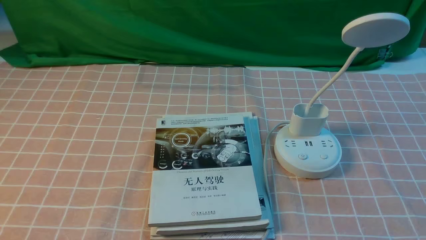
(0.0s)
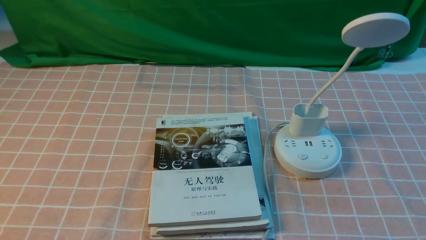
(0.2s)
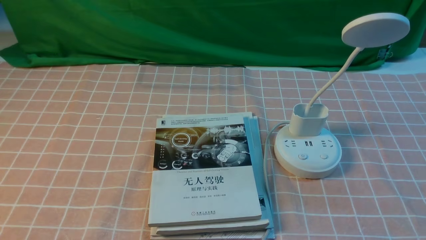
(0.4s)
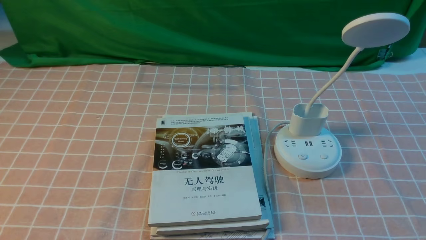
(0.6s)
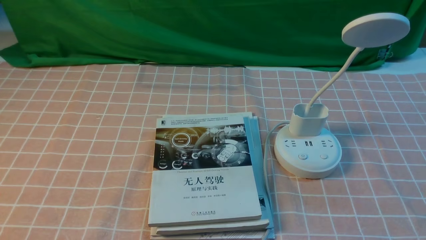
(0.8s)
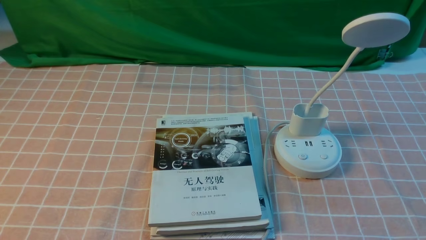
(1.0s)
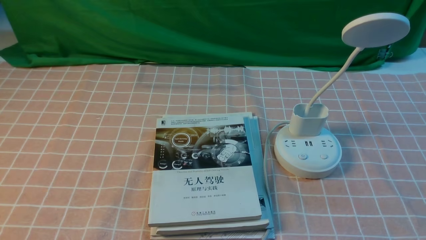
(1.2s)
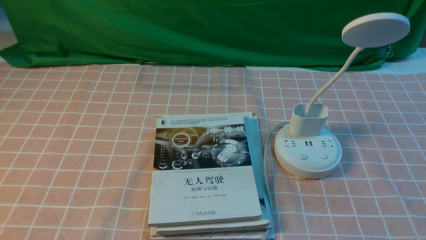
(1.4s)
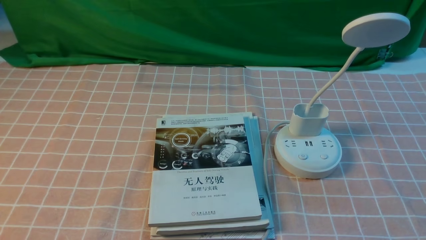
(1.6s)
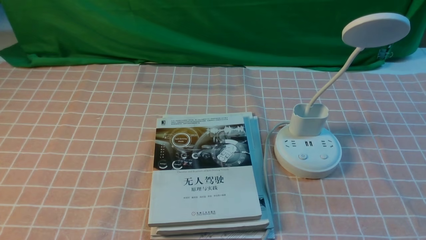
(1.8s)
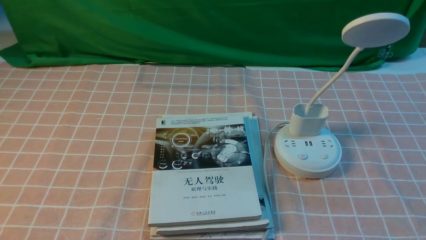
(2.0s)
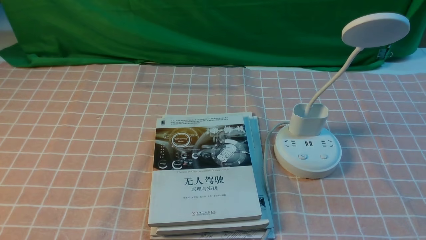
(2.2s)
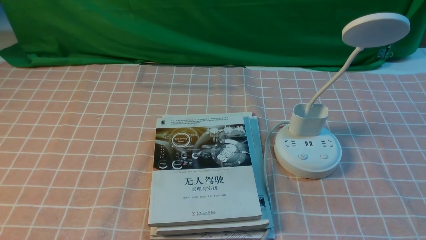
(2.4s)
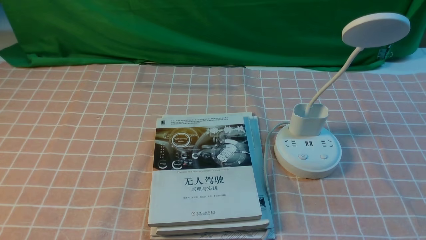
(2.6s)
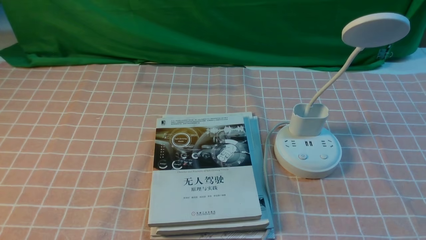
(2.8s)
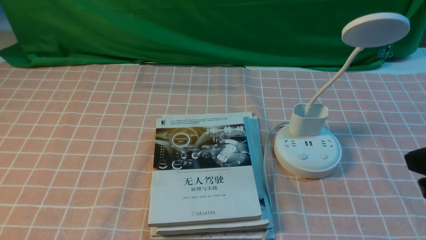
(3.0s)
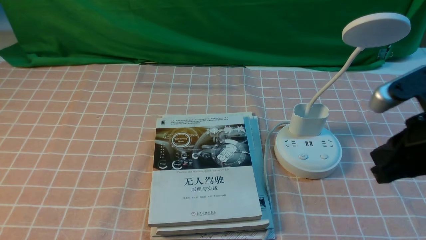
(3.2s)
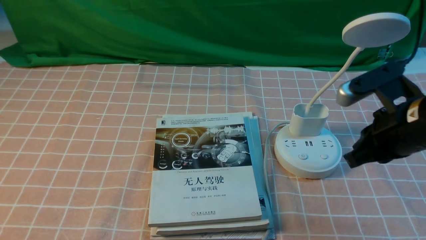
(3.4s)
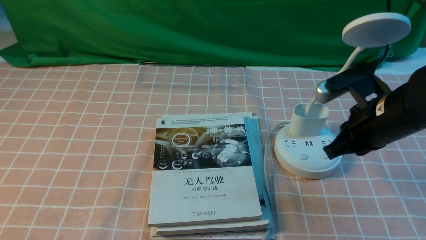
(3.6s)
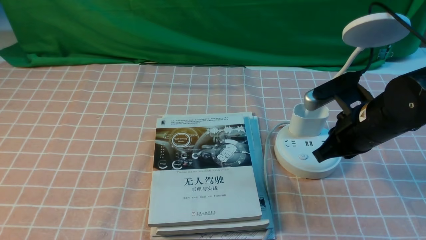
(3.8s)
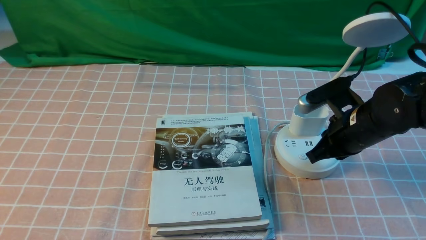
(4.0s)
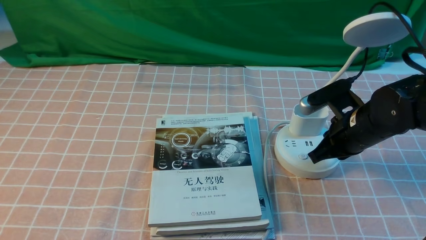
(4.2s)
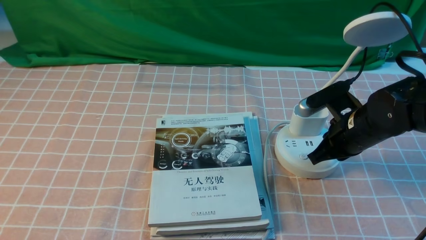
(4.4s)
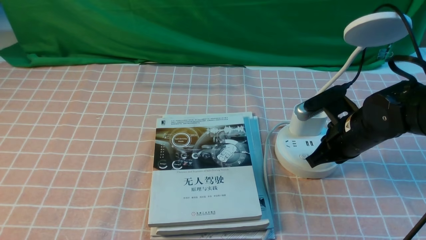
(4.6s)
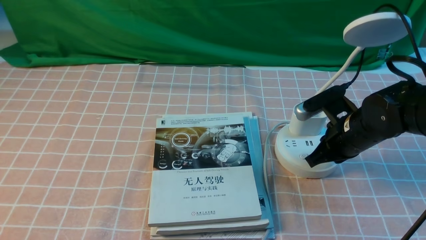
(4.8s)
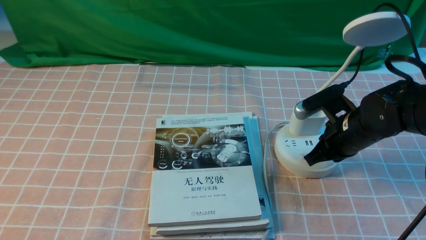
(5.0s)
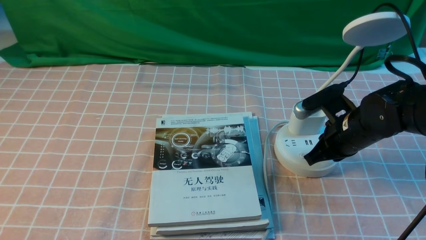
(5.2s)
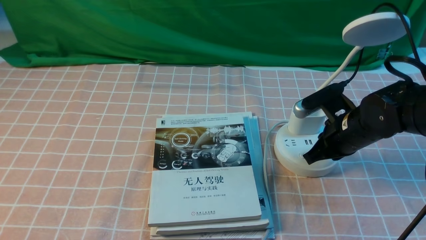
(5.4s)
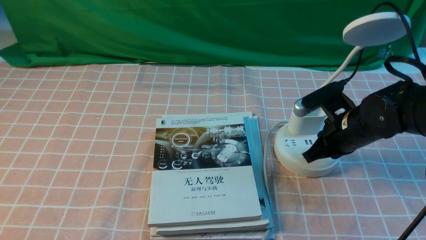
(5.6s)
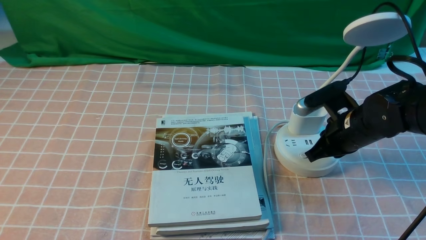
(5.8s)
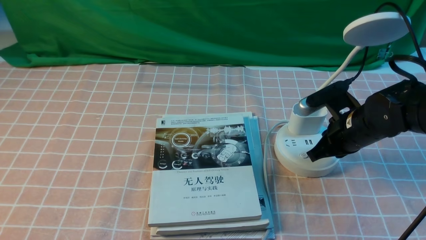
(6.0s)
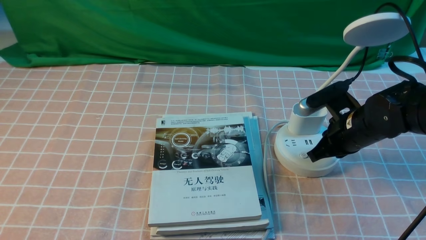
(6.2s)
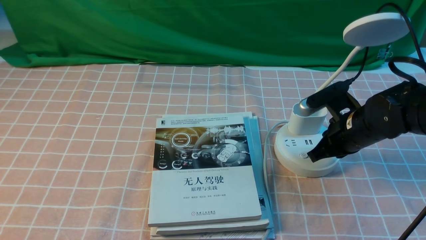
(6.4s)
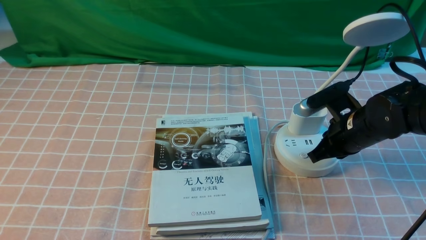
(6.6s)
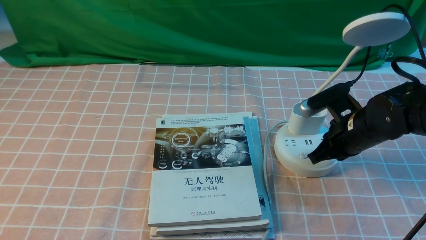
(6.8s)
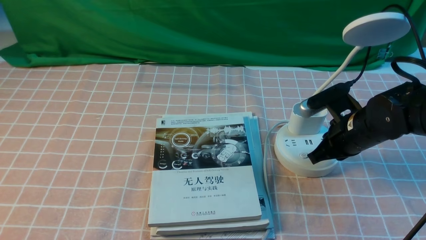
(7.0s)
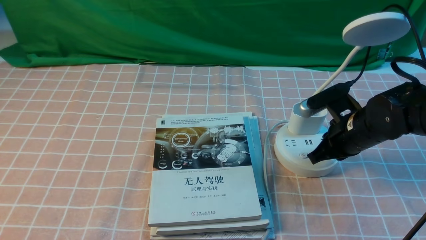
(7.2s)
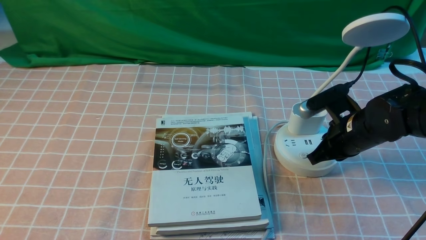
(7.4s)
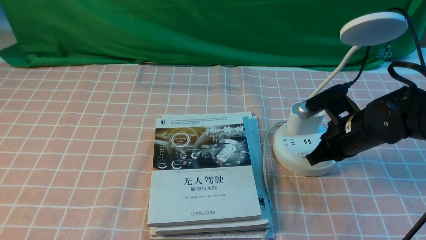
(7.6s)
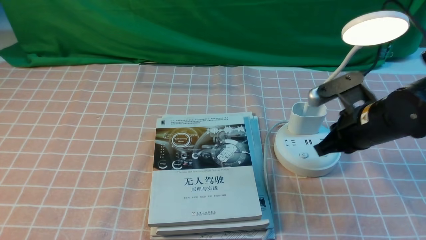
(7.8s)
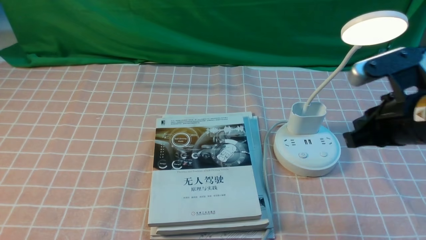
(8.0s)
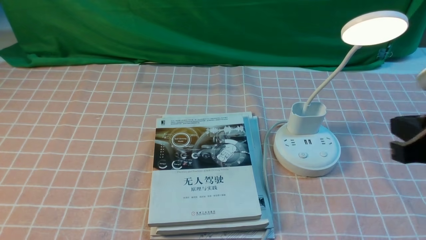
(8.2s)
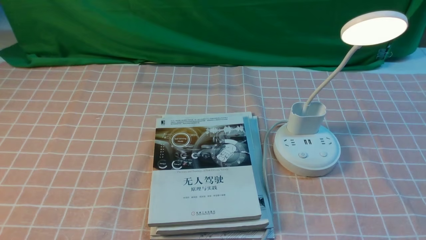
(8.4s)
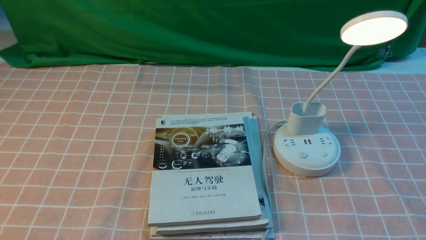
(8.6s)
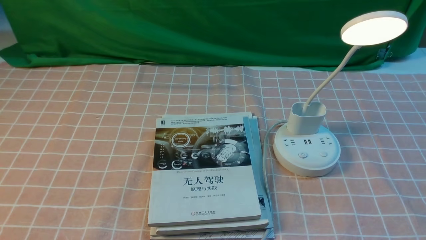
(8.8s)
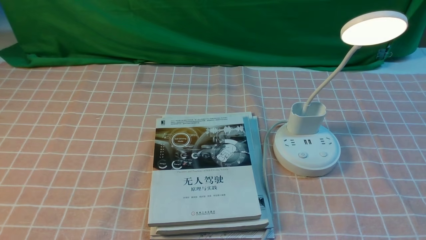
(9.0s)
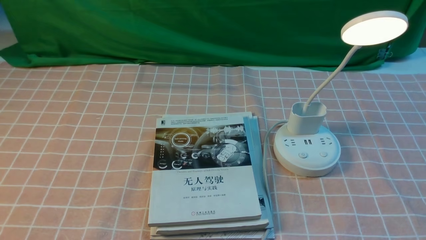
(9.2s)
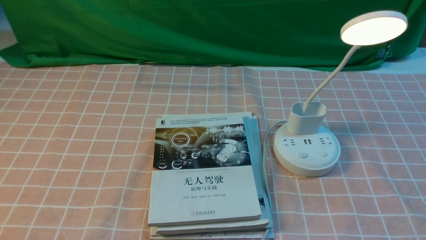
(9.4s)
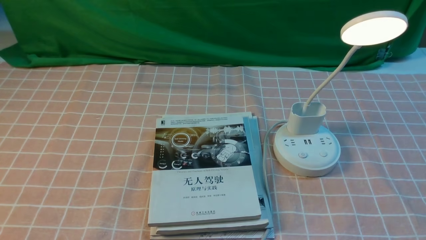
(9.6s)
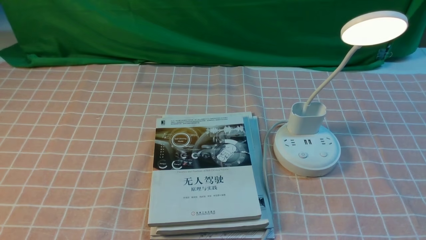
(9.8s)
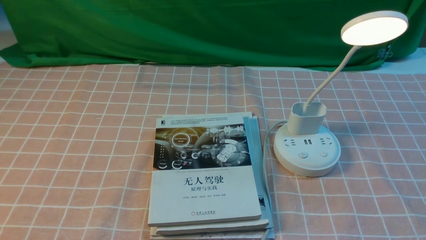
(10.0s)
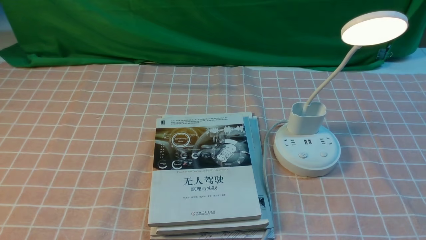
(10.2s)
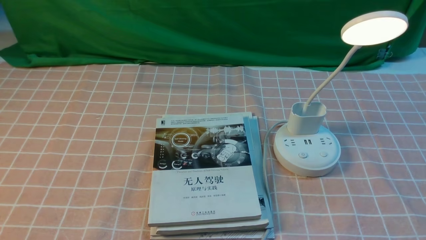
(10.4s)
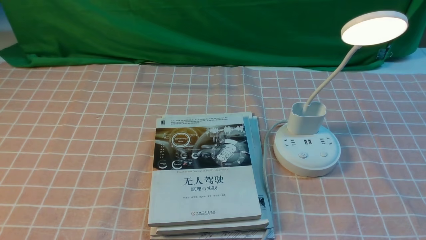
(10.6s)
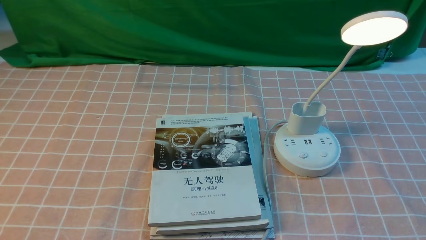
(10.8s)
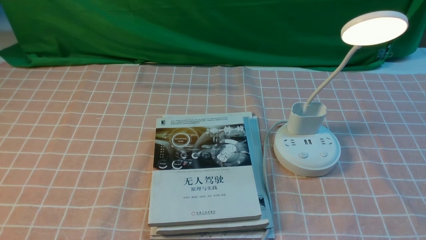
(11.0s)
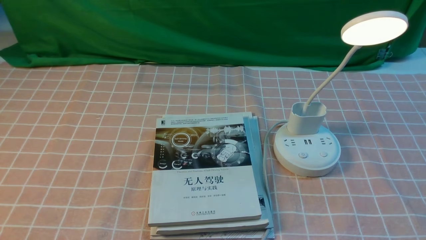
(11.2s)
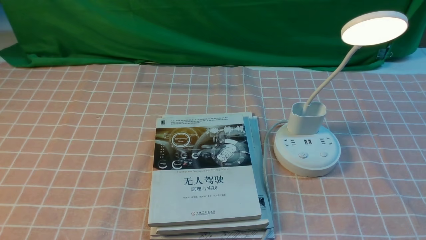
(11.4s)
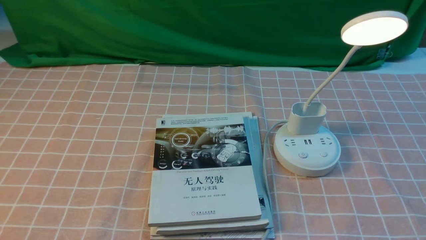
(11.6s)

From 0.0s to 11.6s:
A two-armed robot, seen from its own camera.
Step, from 0.0s to 7.8s: use the right arm to press the button switch on the lamp holder.
From 2.8s to 4.4s: The right gripper heads forward, downward and to the left, covering approximately 25 cm.
From 4.4s to 5.8s: Both grippers stay put.
From 5.8s to 7.2s: Neither gripper changes place.
From 7.2s to 8.8s: The right gripper shifts about 25 cm backward.
From 10.2s to 11.6s: Both grippers stay about where they are.

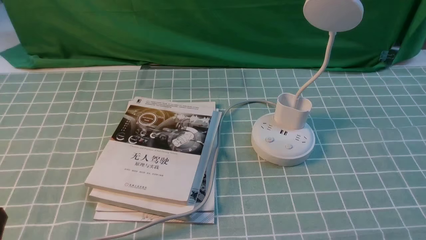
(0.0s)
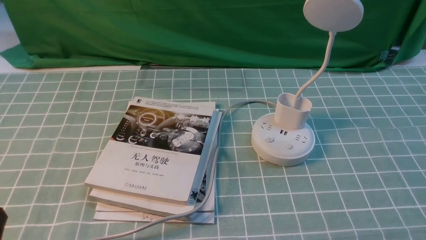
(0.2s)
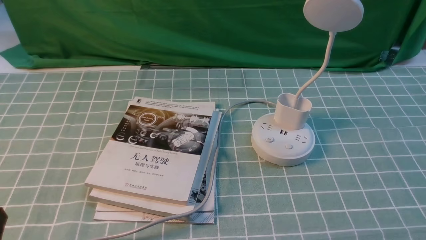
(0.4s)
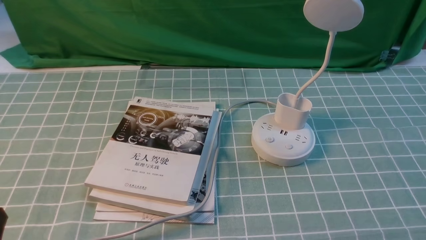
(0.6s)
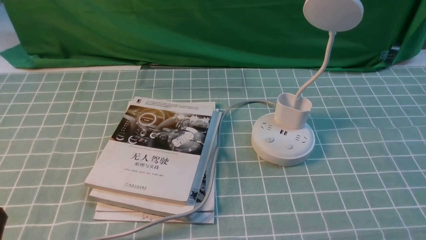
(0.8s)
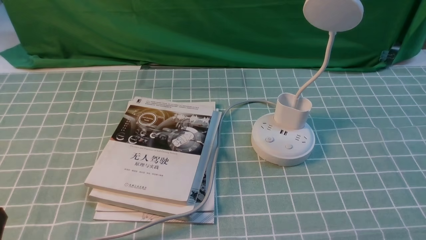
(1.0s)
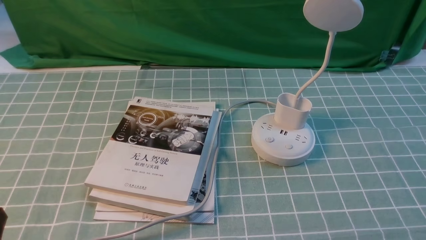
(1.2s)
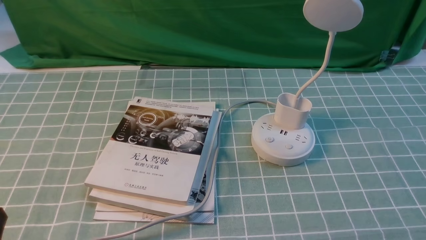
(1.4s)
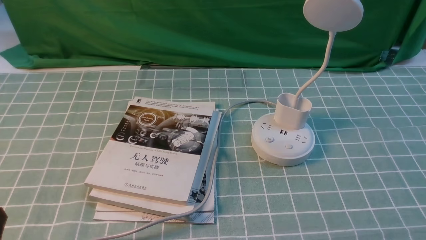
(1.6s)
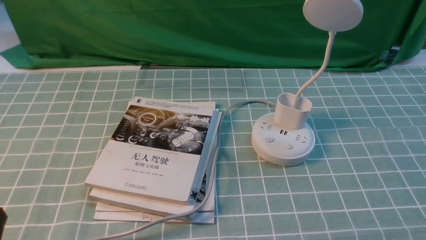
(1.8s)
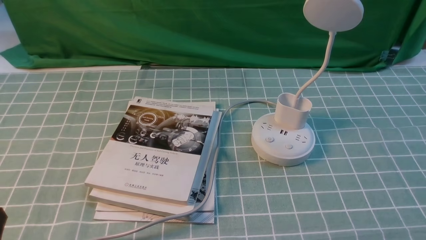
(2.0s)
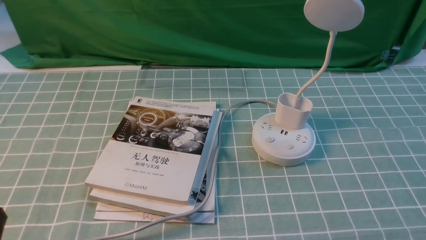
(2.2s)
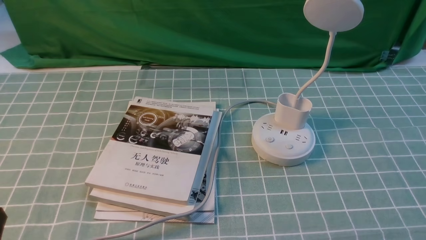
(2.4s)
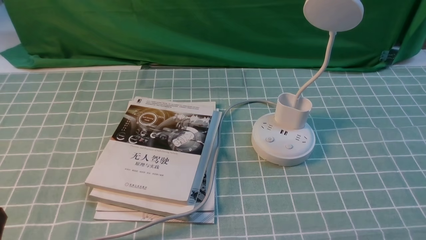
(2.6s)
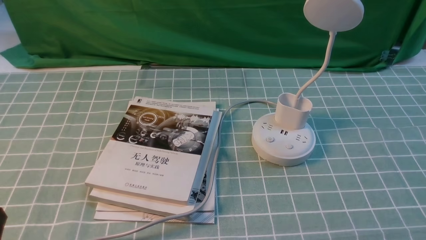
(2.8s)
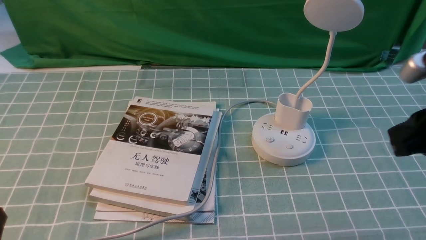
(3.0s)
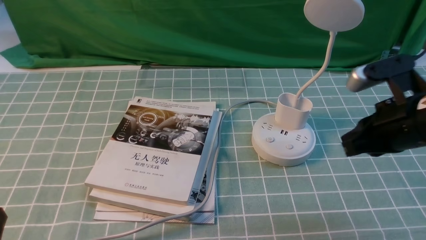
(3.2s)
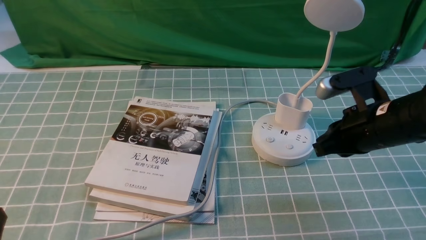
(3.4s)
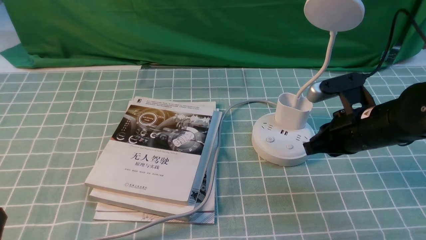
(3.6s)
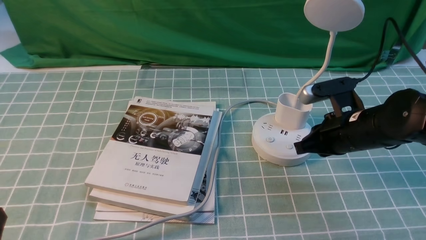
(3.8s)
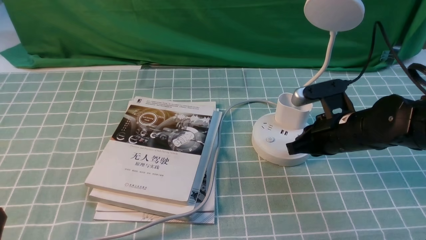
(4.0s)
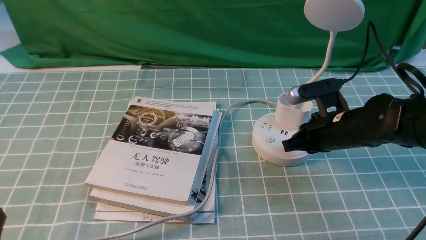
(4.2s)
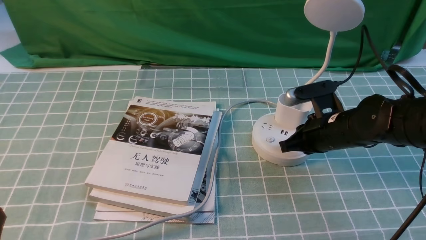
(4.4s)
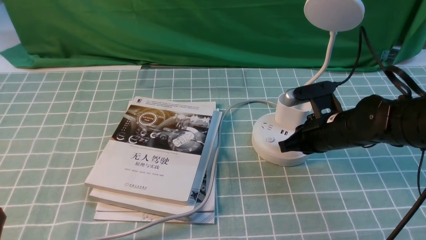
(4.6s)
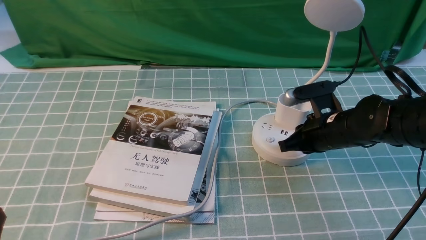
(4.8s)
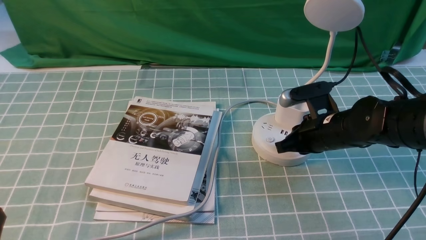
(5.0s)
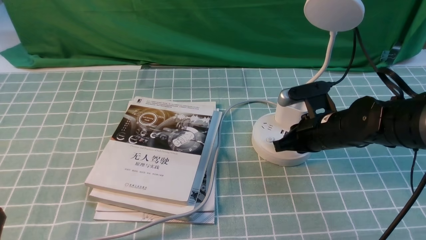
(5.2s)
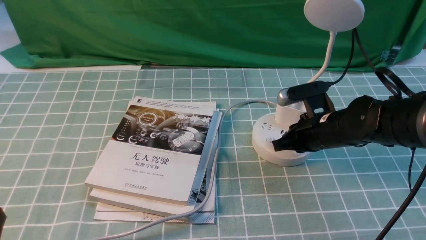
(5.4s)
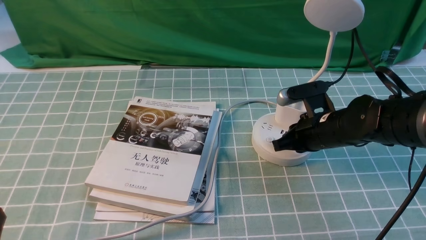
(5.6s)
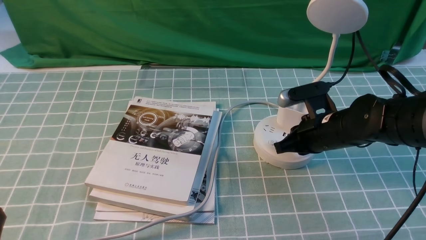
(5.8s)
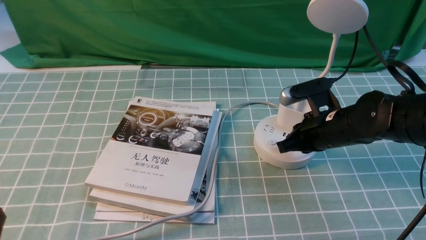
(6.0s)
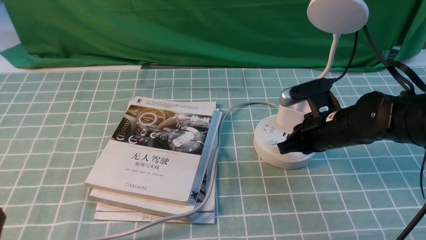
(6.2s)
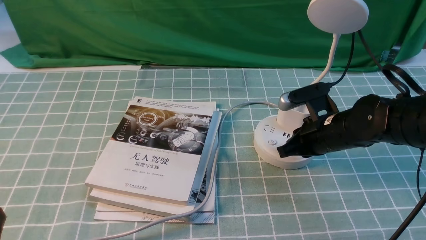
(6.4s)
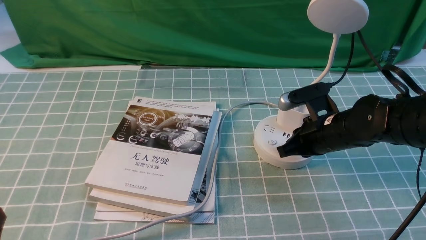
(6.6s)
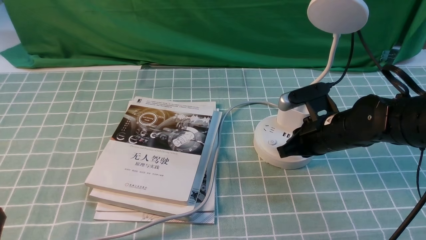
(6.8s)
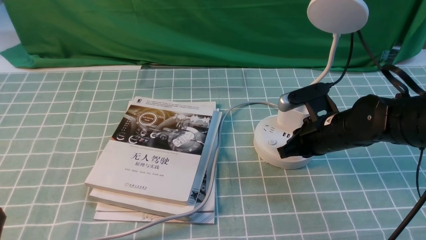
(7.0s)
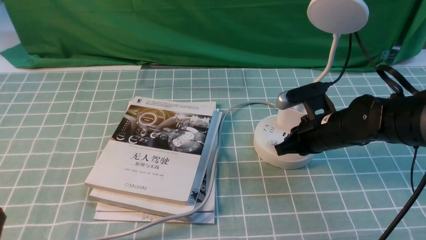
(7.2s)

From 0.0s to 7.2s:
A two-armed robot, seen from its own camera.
From 2.8s to 4.4s: The right gripper shifts some 30 cm forward, downward and to the left.
From 4.4s to 5.8s: There are only small adjustments of the grippers.
From 5.8s to 7.2s: Neither gripper changes place.
